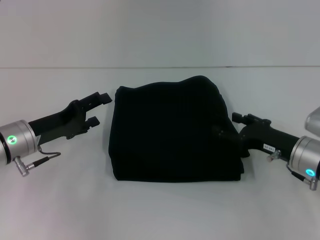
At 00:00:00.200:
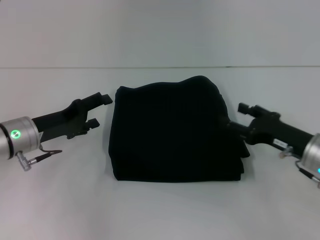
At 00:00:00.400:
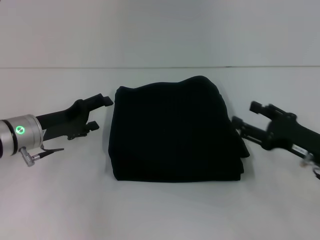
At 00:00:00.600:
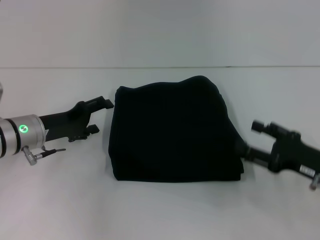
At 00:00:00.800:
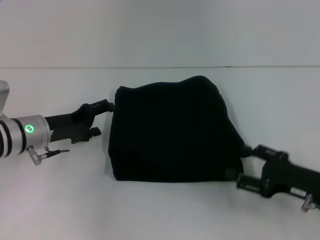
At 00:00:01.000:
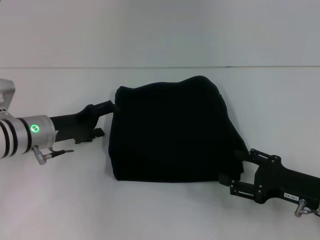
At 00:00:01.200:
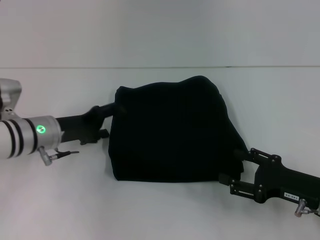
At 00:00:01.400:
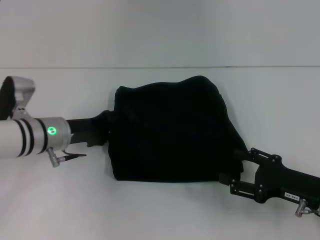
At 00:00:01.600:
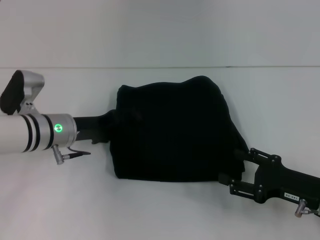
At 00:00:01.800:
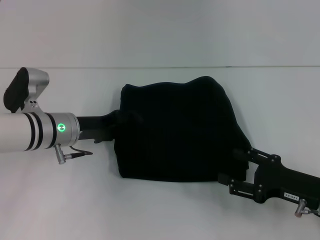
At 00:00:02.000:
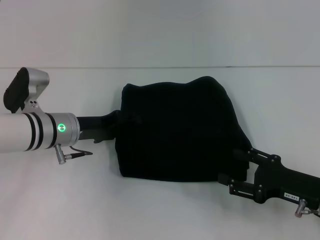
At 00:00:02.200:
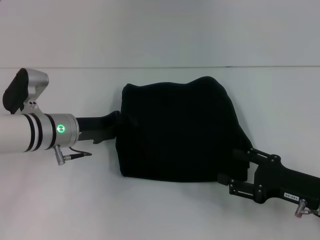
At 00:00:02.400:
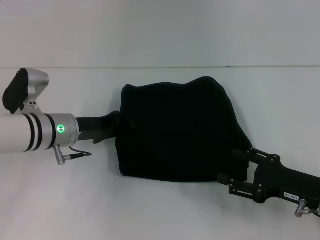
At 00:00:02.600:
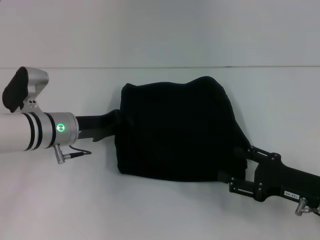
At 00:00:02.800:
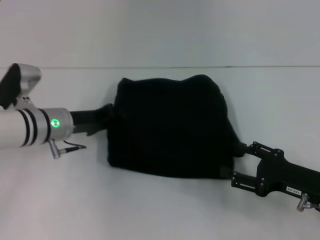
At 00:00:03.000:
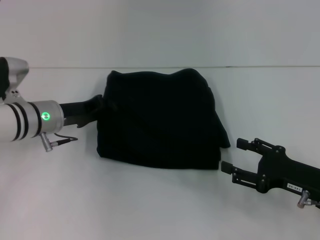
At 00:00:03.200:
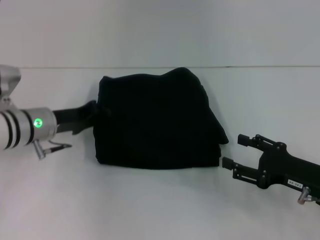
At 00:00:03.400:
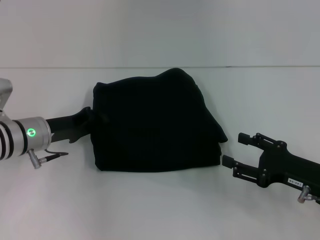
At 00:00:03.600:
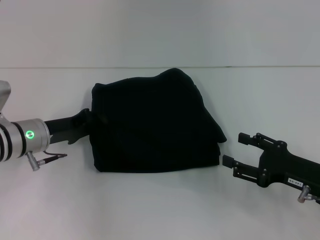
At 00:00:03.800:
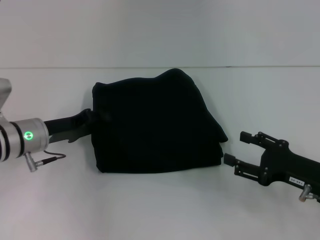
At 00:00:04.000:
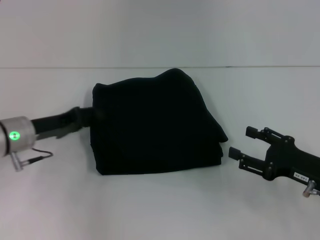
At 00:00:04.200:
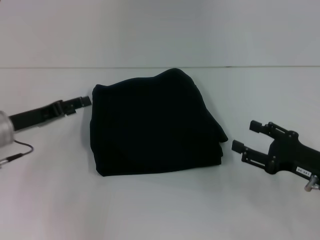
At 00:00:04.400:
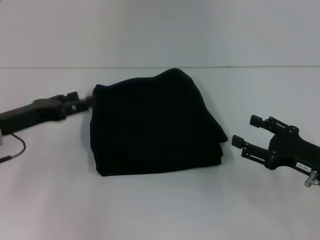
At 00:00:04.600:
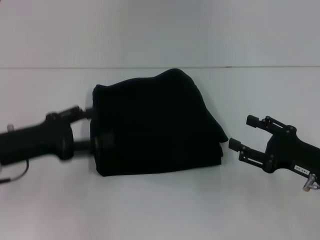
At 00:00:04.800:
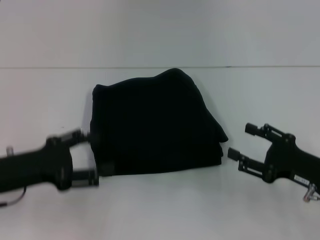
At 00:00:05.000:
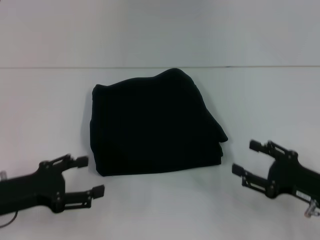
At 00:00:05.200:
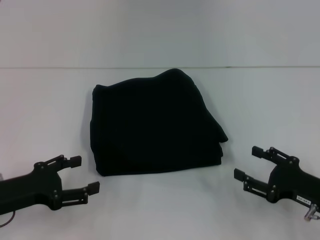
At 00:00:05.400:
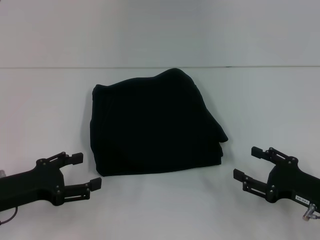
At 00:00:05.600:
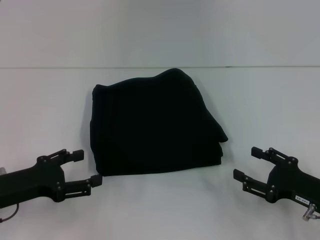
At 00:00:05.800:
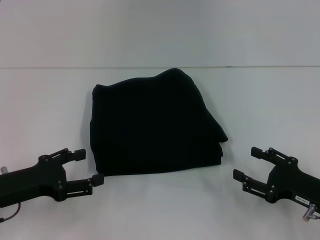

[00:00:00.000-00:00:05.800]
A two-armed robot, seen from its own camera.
00:00:00.000 to 00:00:01.400: The left gripper moves roughly 5 cm, while the right gripper is displaced backward by about 5 cm.
00:00:01.400 to 00:00:02.800: The left gripper closes.
00:00:02.800 to 00:00:04.400: The left gripper travels to the left and backward by some 10 cm, and opens its fingers.
00:00:04.400 to 00:00:05.800: The left gripper moves backward, approximately 5 cm.
